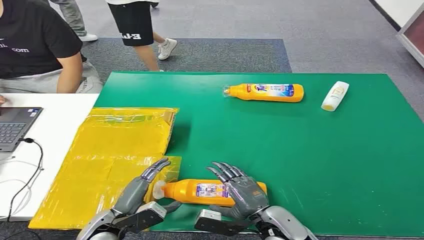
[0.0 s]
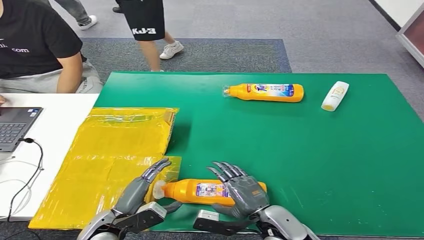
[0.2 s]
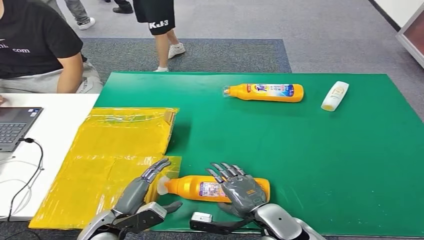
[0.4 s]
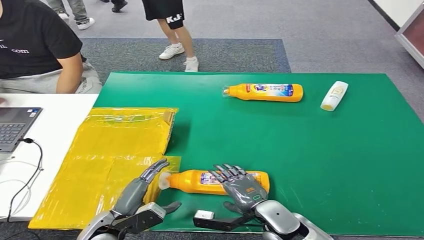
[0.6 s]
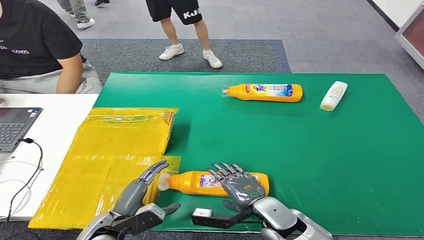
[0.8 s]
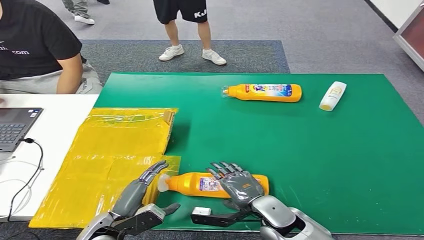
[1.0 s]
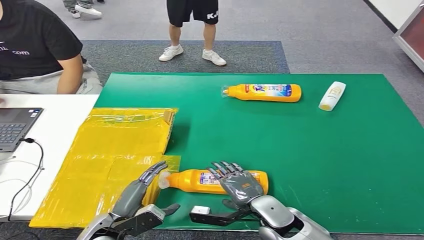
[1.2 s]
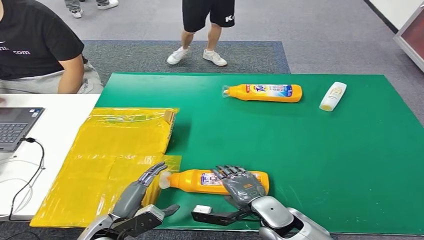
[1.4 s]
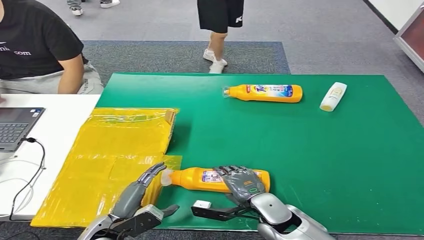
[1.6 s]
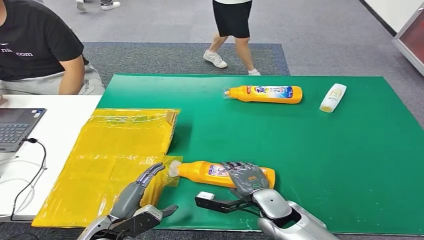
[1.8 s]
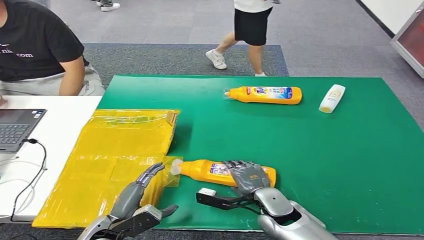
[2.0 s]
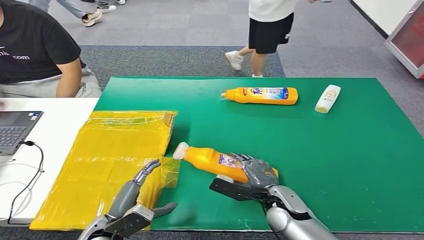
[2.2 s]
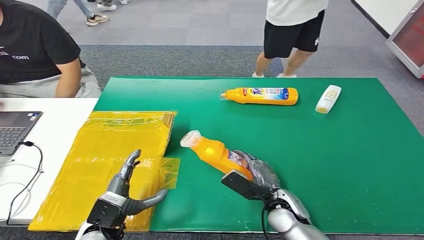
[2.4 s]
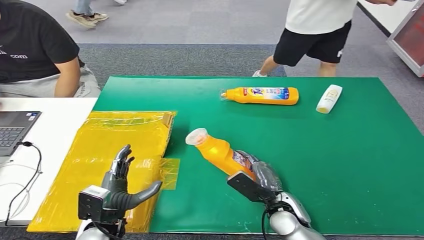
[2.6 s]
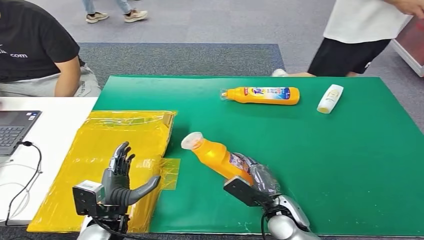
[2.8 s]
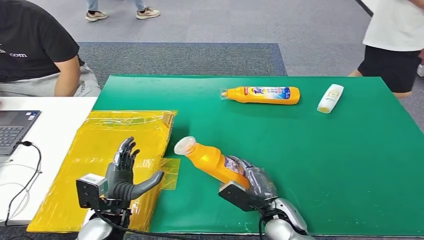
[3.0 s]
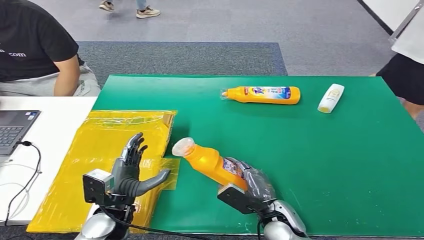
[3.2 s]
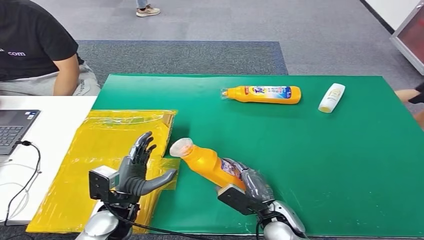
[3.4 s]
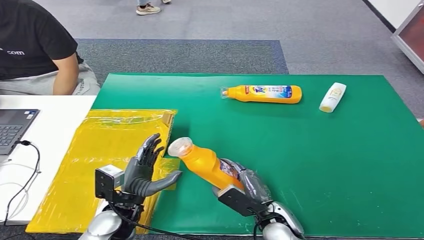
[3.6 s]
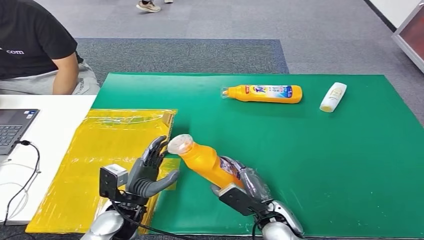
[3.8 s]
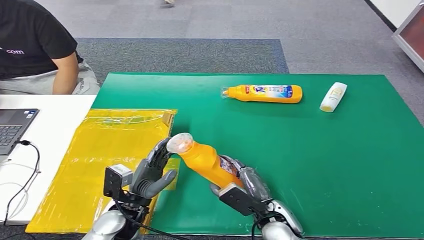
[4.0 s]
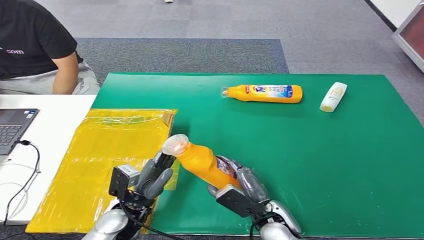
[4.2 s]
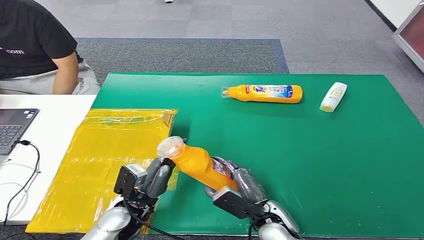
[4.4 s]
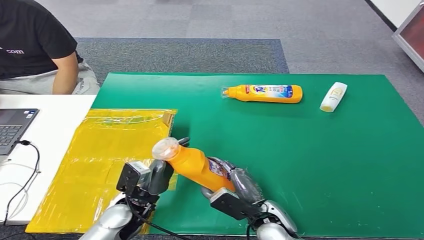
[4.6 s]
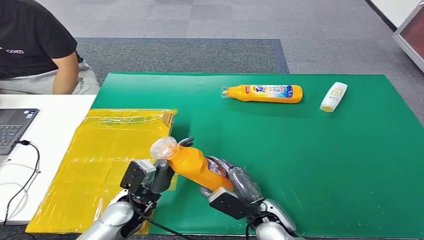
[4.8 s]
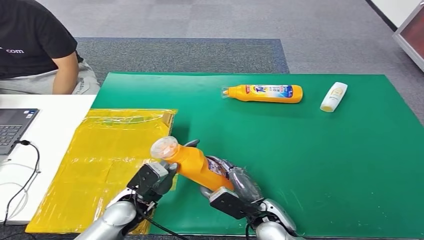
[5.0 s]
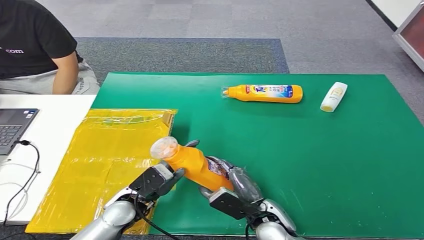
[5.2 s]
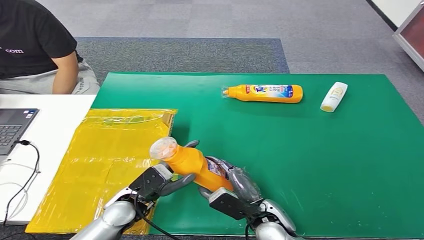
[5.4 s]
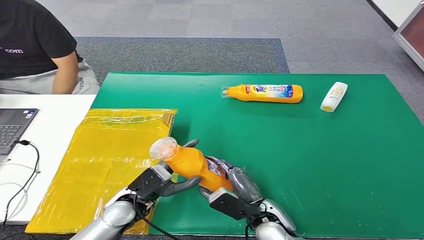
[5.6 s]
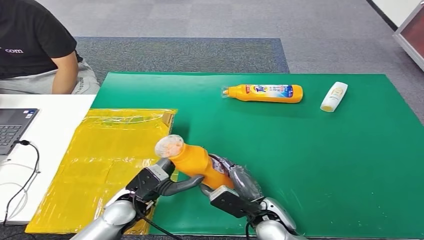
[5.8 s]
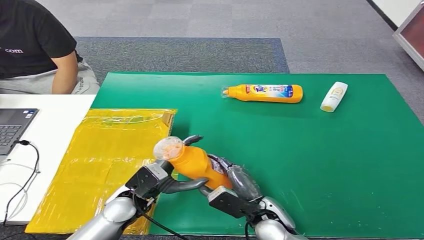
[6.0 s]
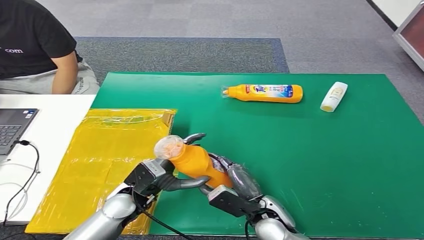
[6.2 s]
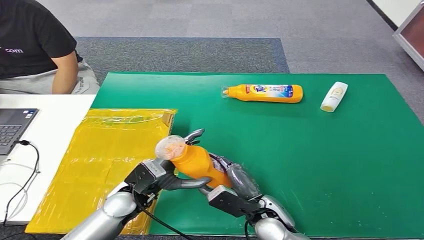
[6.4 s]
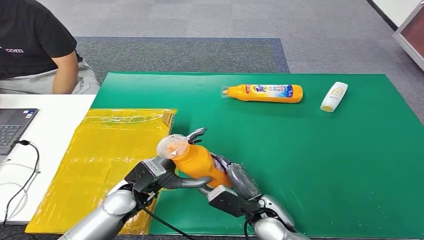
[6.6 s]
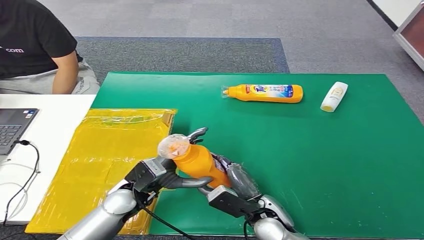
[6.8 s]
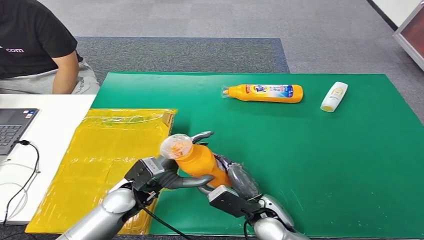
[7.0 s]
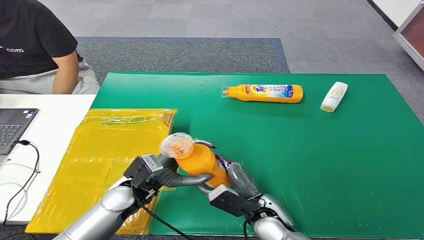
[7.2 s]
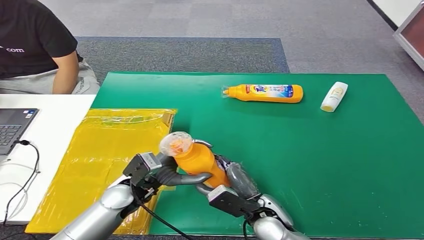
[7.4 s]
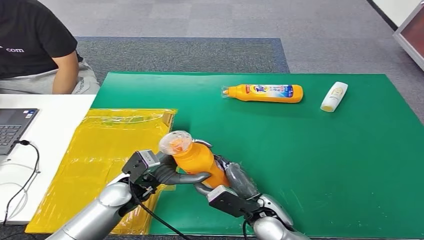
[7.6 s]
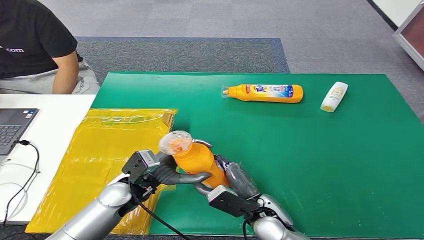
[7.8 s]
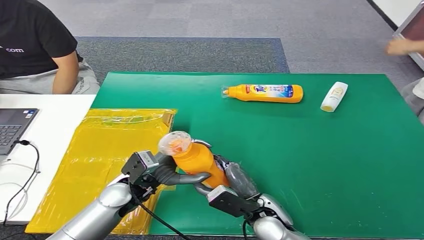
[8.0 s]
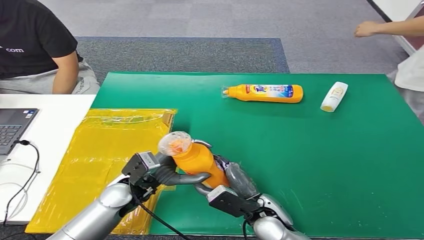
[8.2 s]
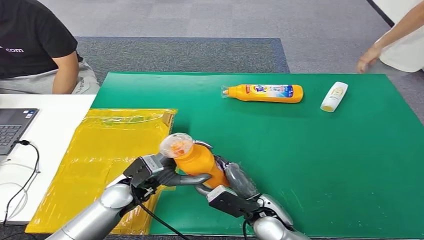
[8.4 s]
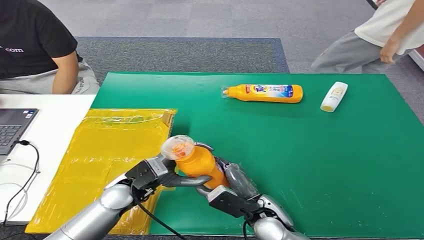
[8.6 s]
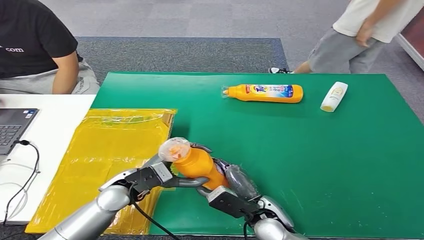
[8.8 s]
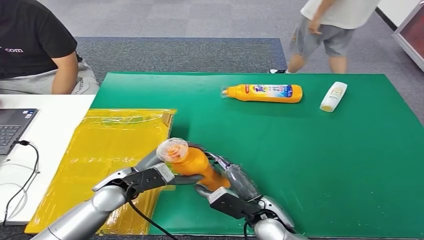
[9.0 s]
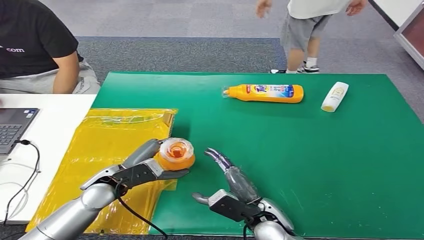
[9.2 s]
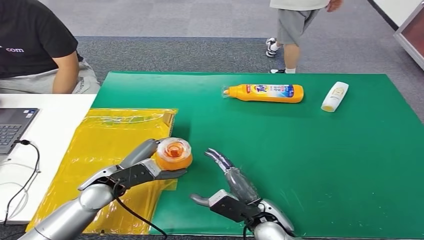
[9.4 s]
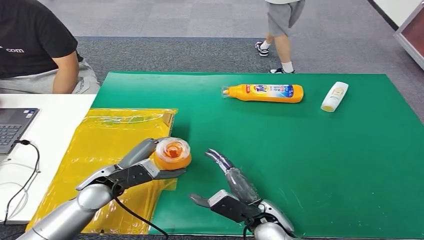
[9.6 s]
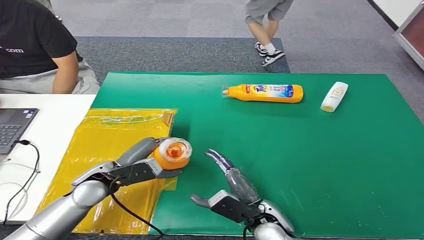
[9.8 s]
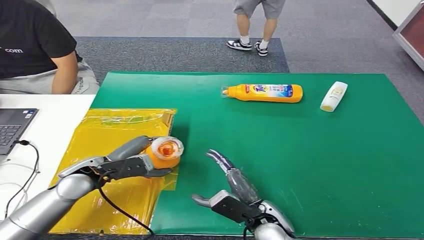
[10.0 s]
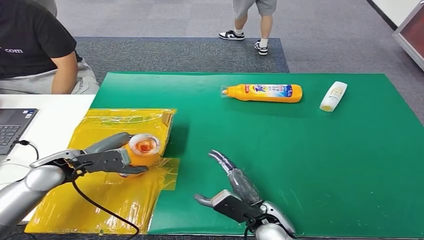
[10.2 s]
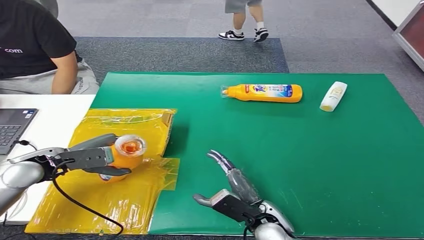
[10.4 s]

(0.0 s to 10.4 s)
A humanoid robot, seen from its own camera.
Step, 0.0 s - 2.8 s: Pick up the bottle from the table.
4.4 s - 6.0 s: The hands move only a little.
6.0 s - 7.4 s: The hands make only small movements.

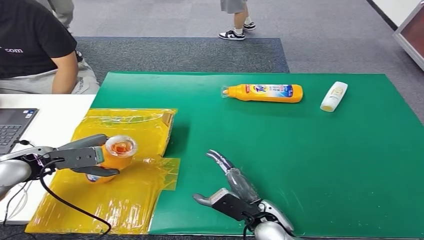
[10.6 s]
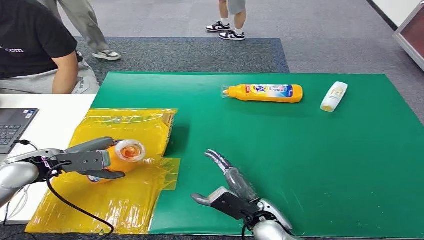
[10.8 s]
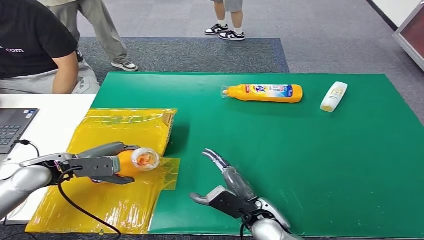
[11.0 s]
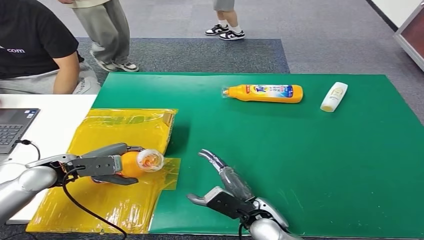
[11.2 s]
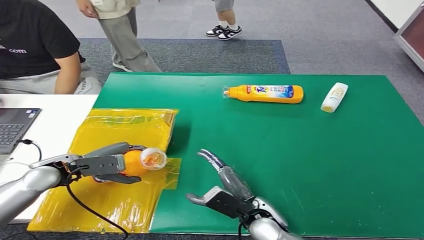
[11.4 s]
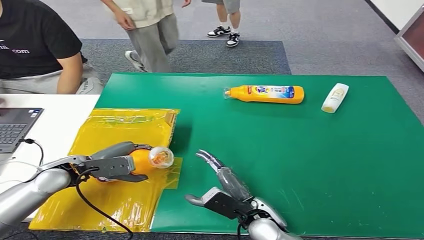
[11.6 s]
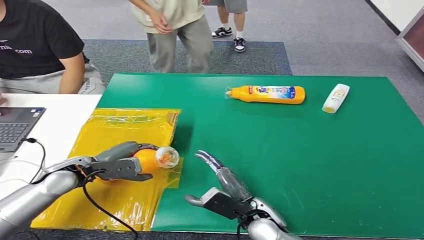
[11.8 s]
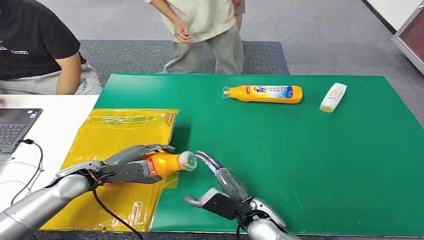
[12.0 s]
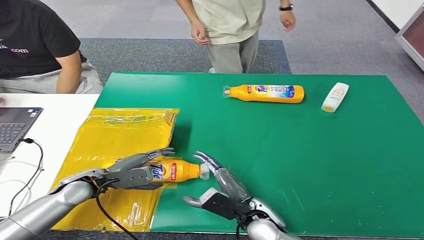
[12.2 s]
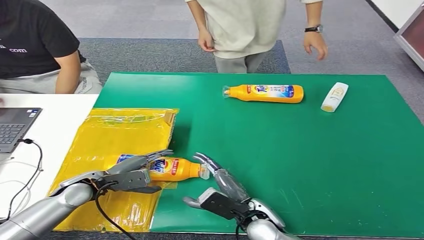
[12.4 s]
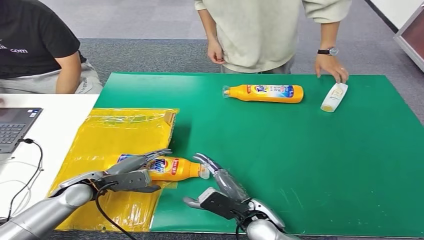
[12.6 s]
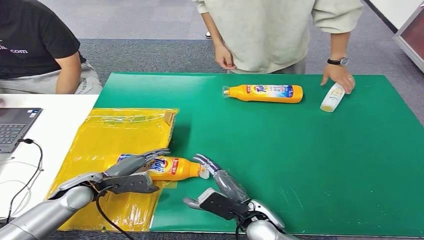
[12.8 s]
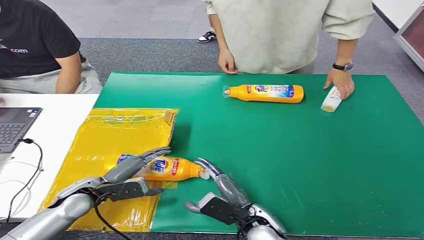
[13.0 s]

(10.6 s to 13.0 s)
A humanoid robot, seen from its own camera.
Step, 10.6 s - 13.0 s: Turn the bottle to the front side.
